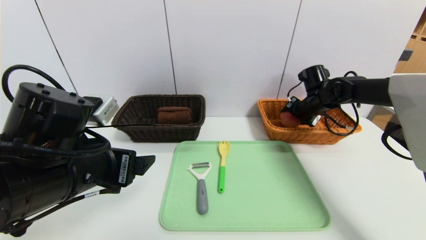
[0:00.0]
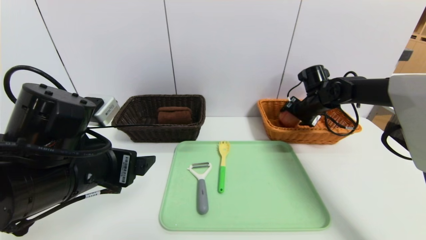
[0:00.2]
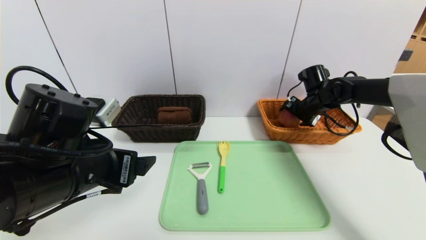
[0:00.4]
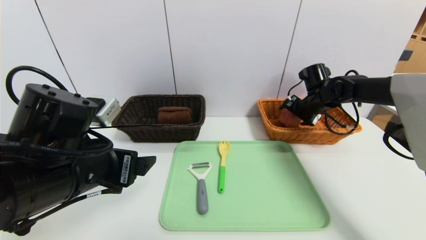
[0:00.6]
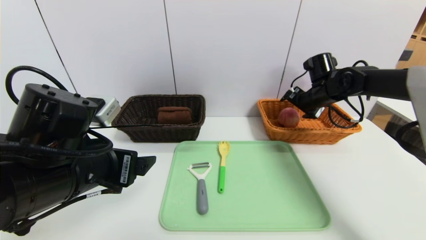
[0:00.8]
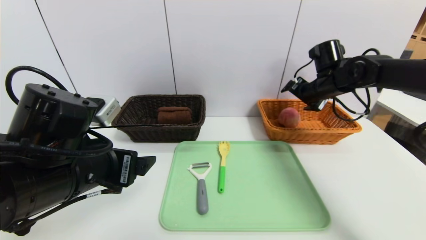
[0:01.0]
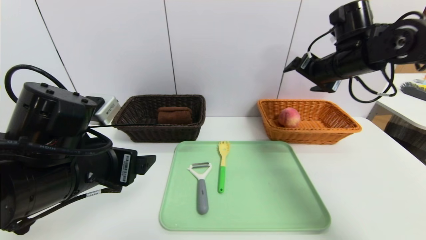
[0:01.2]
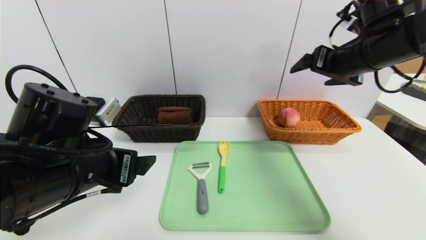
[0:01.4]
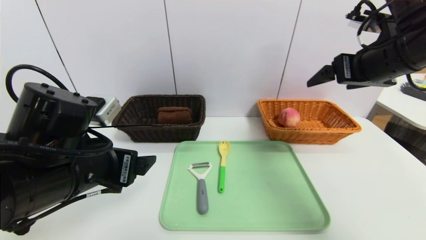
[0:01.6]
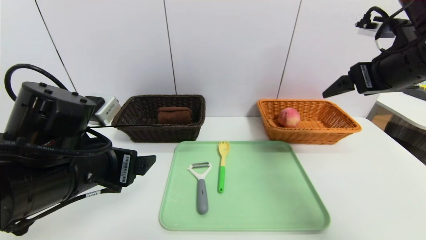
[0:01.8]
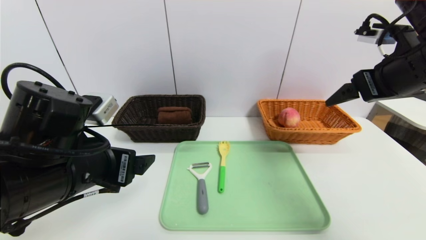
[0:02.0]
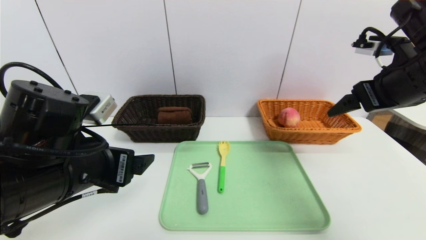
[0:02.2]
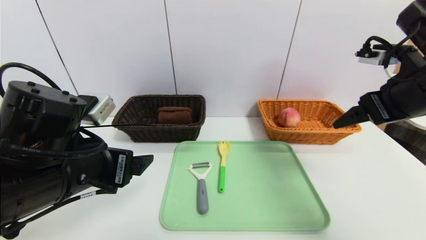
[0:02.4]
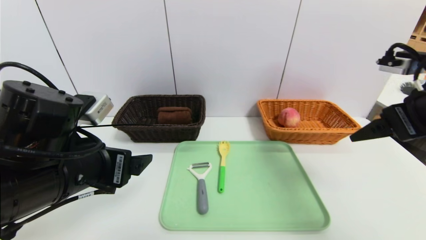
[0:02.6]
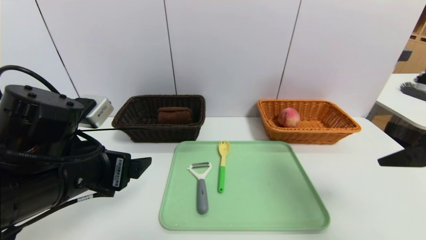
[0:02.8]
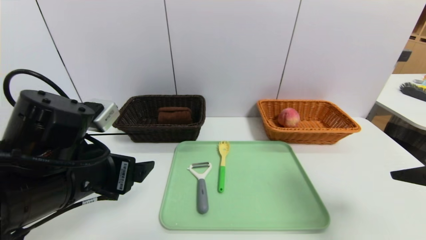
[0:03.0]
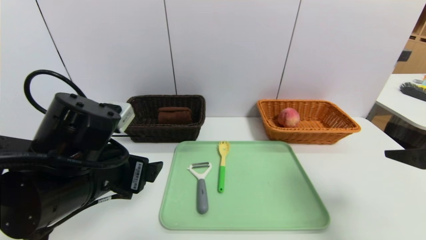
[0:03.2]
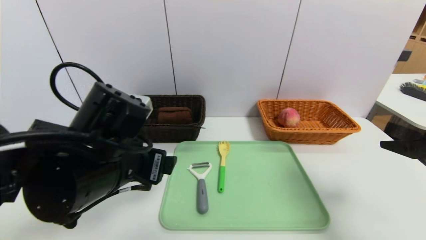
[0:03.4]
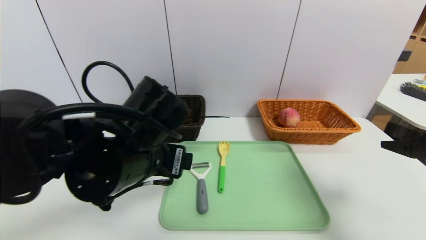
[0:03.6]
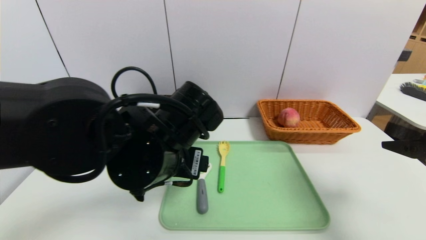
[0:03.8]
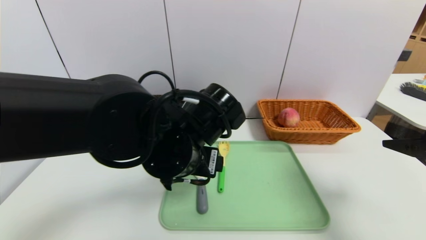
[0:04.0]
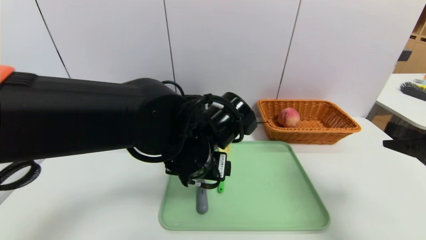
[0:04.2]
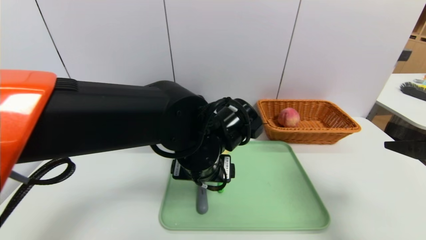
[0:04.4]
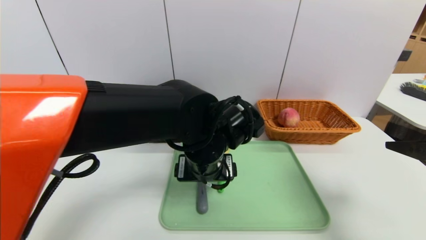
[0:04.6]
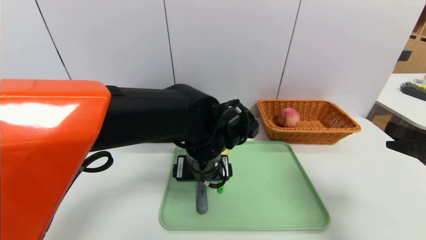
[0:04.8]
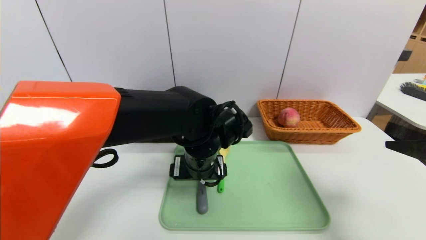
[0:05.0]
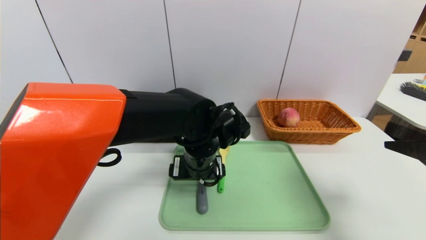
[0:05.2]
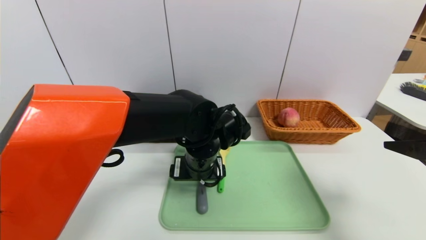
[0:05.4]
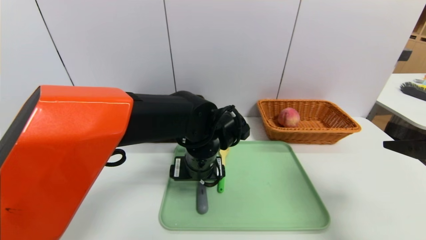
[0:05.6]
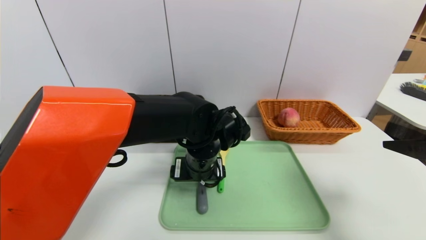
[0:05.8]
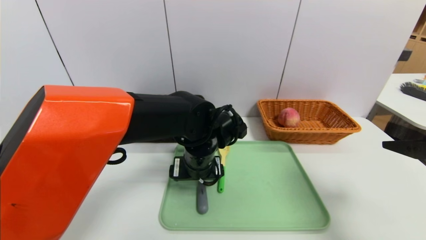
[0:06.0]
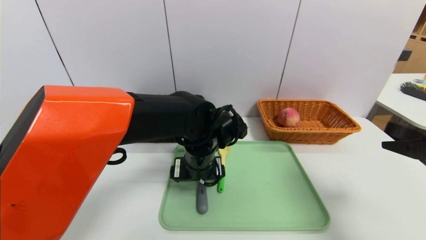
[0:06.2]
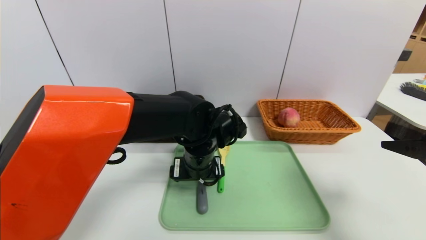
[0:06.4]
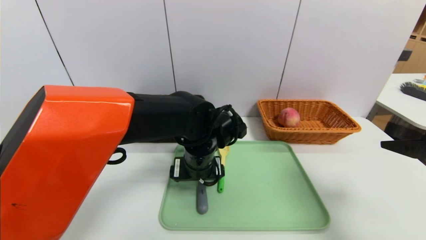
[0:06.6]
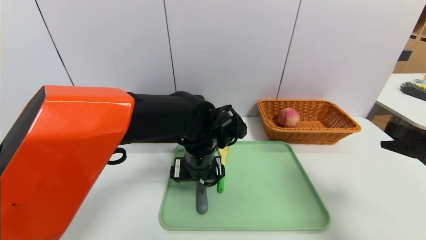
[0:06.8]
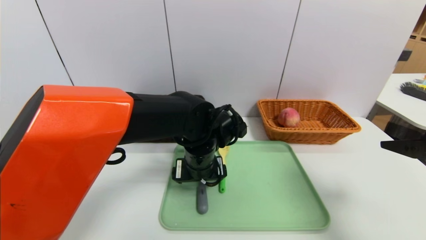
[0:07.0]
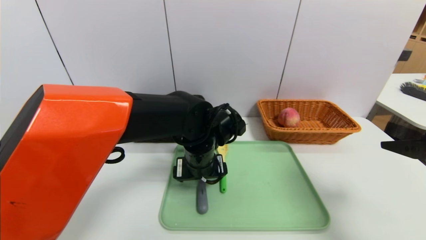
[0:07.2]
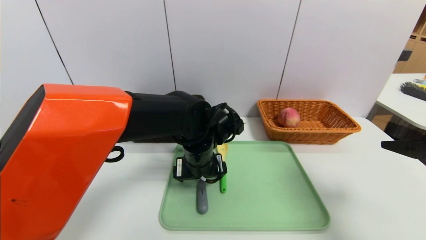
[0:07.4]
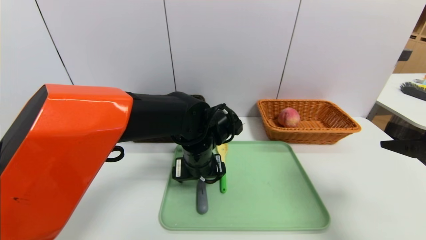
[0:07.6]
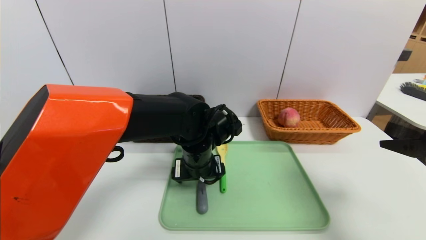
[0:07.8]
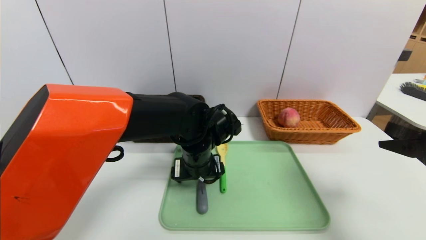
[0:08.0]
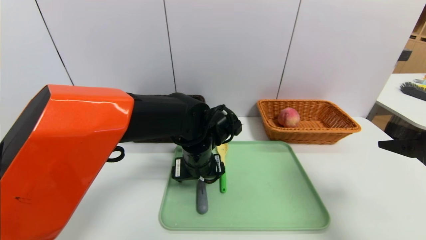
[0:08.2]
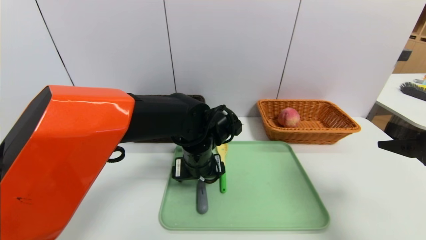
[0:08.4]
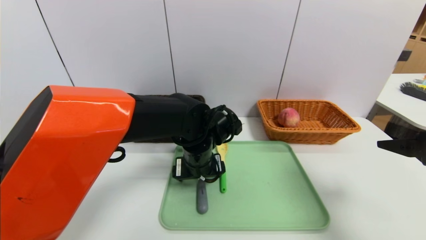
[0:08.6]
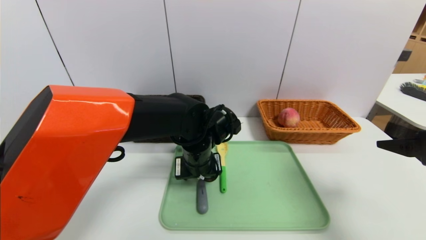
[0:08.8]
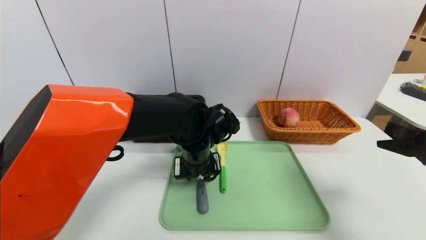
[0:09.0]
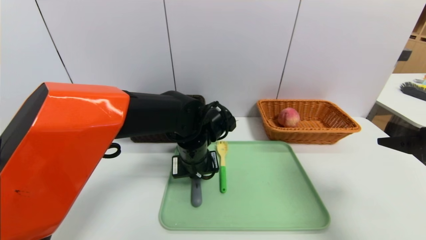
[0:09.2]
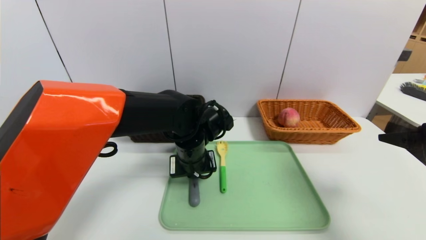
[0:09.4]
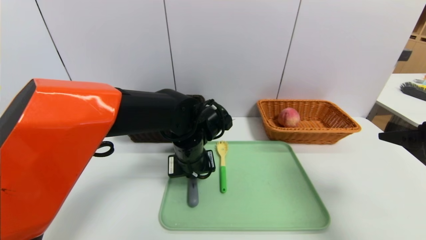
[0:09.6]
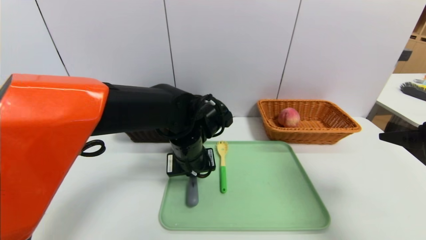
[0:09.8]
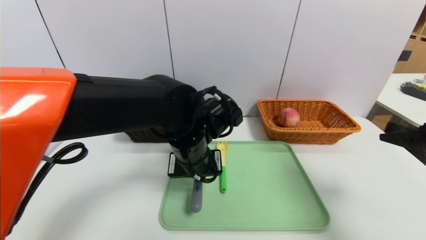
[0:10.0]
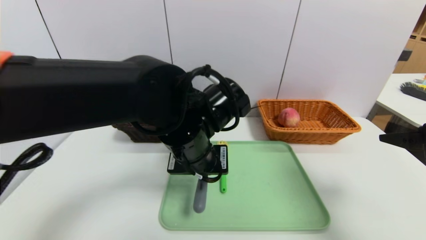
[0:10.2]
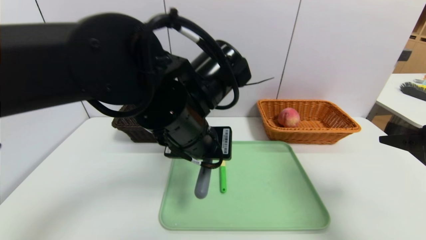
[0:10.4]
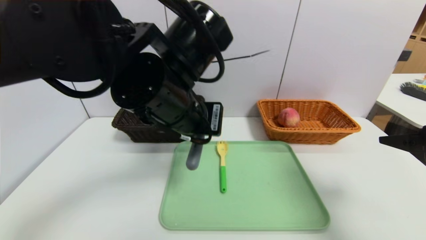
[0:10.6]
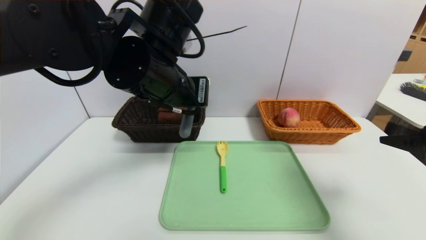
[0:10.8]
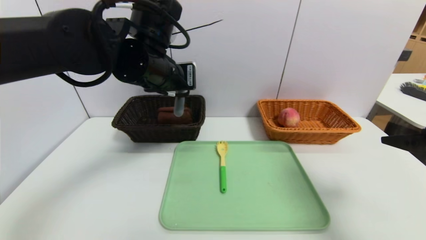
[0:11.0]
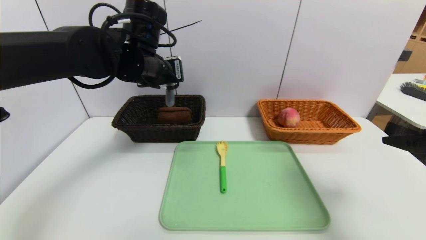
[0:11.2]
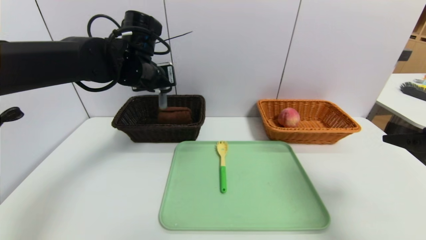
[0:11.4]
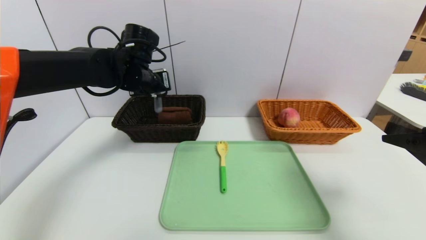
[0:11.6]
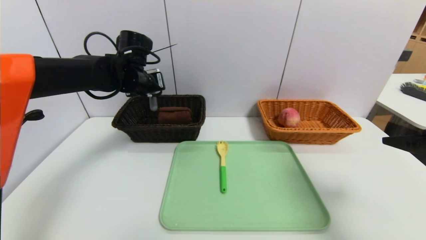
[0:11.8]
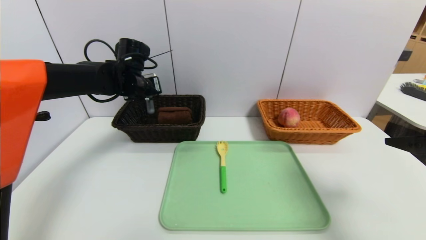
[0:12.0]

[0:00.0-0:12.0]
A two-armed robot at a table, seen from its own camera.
Task of the whole recording: place the food in the right basket with the right gripper, and place the non food items in the left basket with the left gripper.
0:00.0 to 0:01.6: The right gripper is displaced backward and upward by approximately 25 cm, and opens up.
0:01.6 to 0:03.0: The right gripper shifts roughly 15 cm backward and downward.
0:03.0 to 0:04.4: The left gripper travels to the right and forward by roughly 20 cm.
0:04.4 to 0:06.0: The left gripper shifts by roughly 5 cm.
0:06.0 to 0:07.6: The grippers stay close to where they were, moving slightly.
0:07.6 to 0:09.0: The left gripper closes.
0:09.0 to 0:10.4: The left gripper moves upward and backward, about 15 cm, and closes up.
0:10.4 to 0:12.0: The left gripper goes about 25 cm forward and to the left.

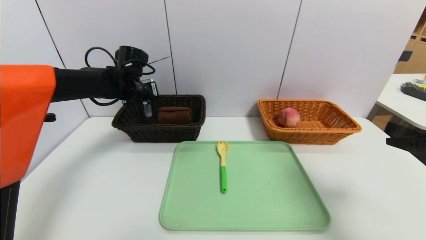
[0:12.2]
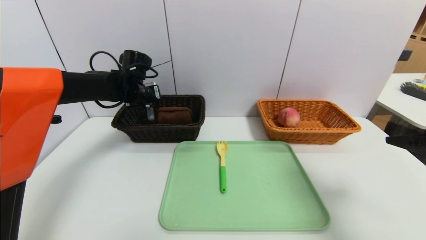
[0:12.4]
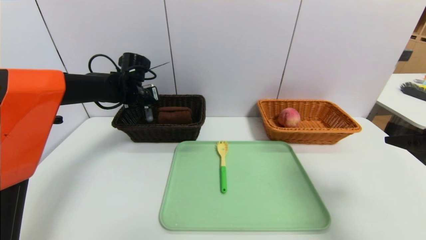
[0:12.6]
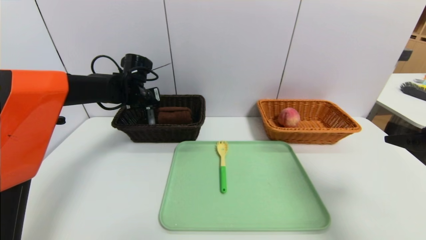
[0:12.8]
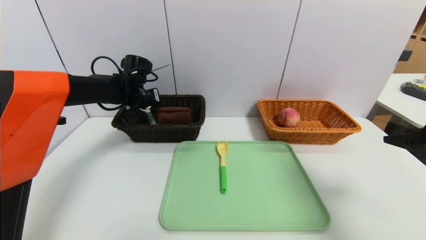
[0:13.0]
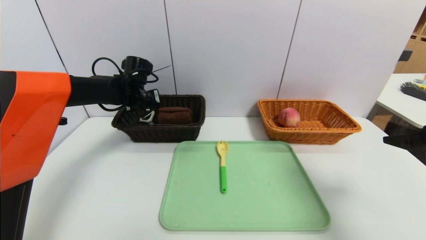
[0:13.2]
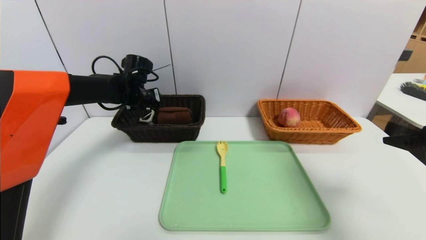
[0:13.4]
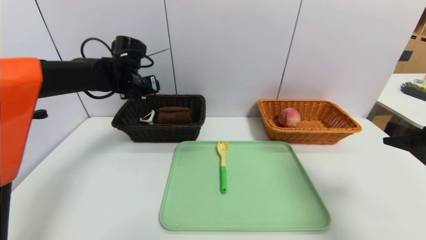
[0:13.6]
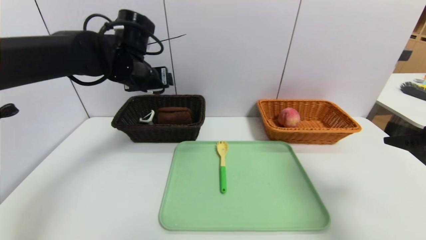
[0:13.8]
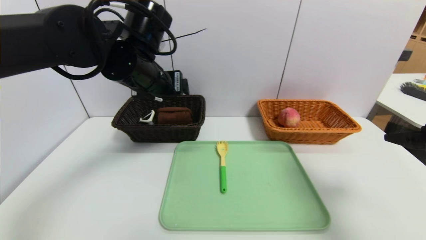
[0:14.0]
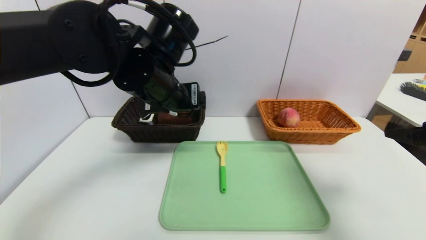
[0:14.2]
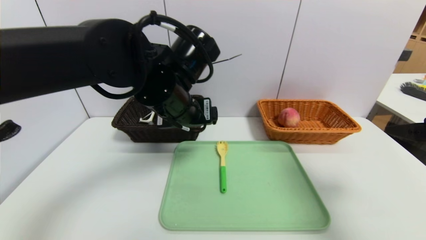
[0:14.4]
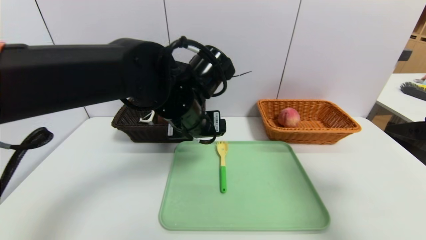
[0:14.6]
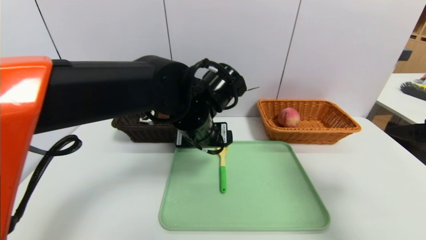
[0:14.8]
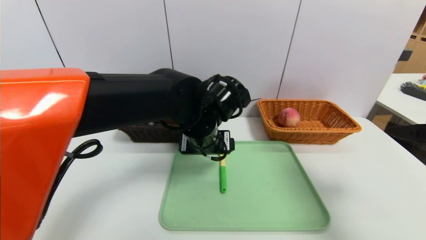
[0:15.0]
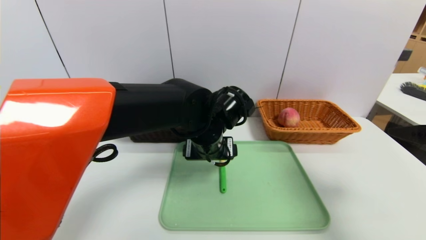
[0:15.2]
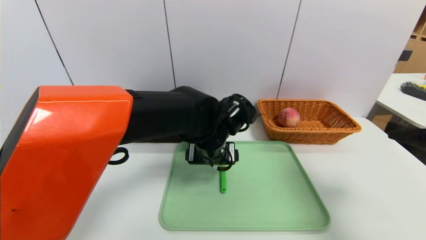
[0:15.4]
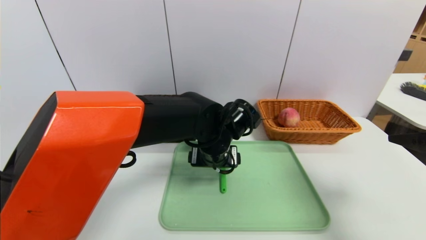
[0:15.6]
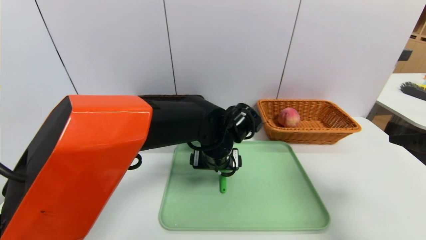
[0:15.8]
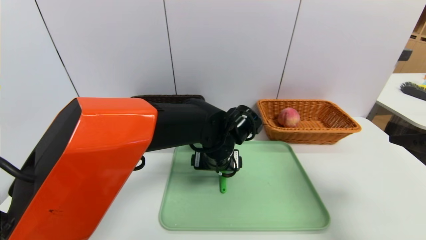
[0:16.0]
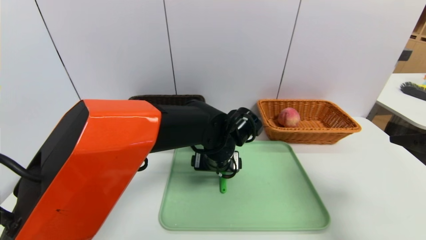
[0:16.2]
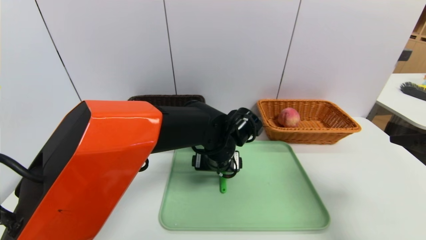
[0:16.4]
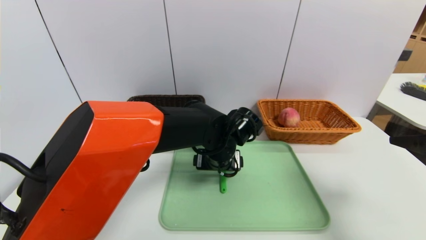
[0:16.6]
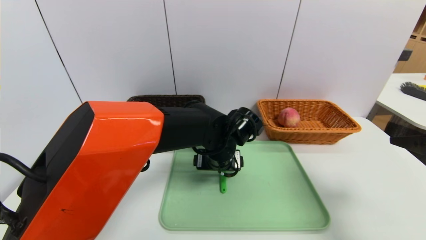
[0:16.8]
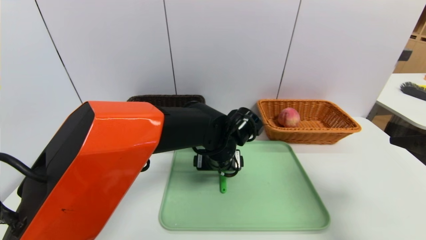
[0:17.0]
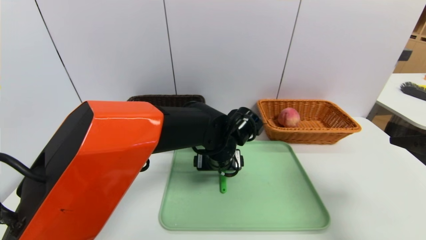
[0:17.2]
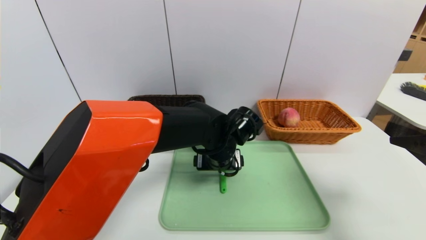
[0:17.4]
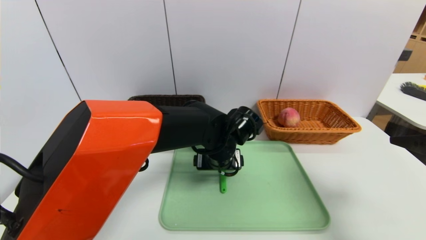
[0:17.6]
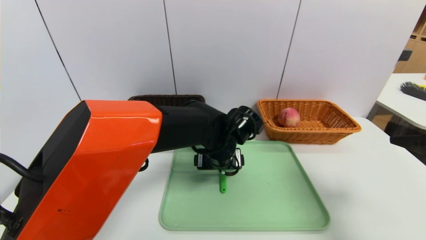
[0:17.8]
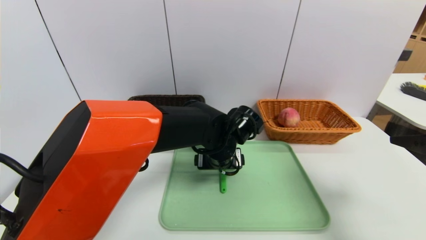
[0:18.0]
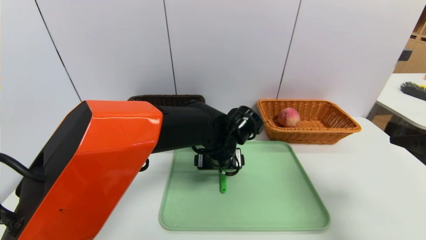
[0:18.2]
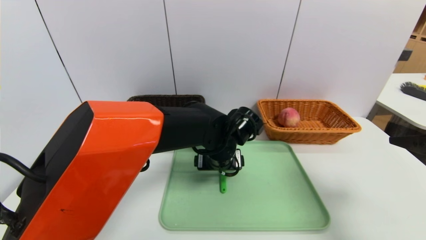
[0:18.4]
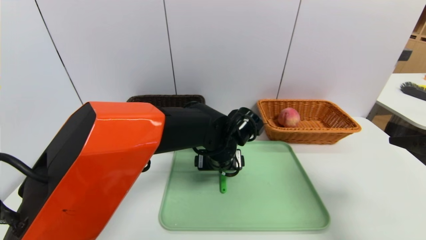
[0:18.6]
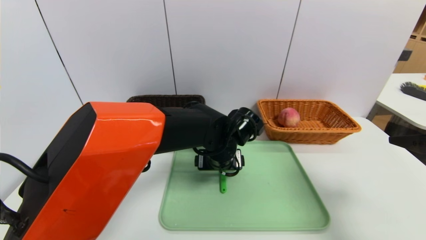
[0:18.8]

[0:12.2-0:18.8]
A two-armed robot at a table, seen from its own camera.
Task of the whole recording: place the food in the right basket with the right gripper, and place the non food items in the left basket with the left gripper.
0:12.2 to 0:13.8: The left gripper goes approximately 10 cm backward, upward and to the right, and opens up.
0:13.8 to 0:15.4: The left gripper goes some 20 cm to the right, downward and backward.
0:15.4 to 0:17.2: There are only small adjustments of the grippers.
0:17.2 to 0:18.8: Neither gripper changes place.
